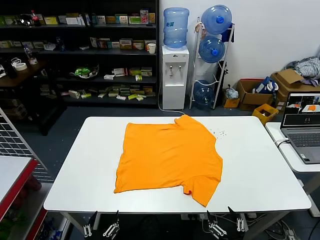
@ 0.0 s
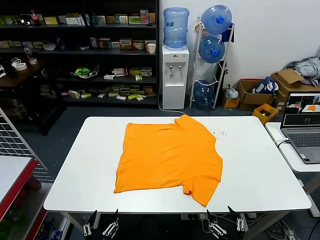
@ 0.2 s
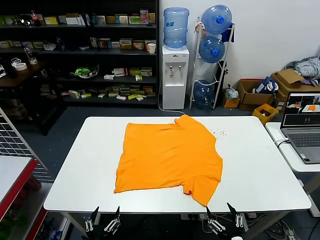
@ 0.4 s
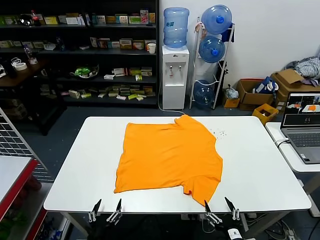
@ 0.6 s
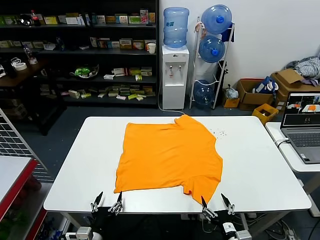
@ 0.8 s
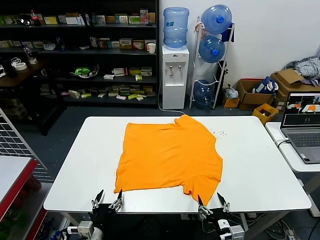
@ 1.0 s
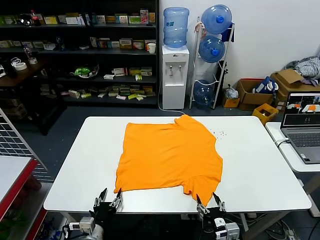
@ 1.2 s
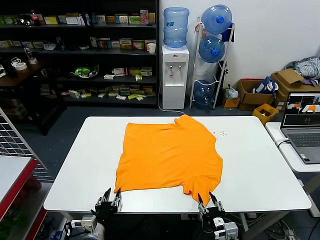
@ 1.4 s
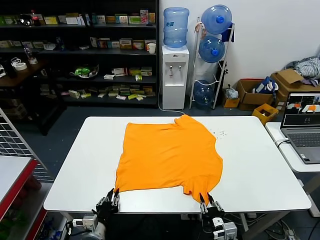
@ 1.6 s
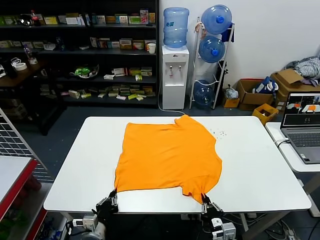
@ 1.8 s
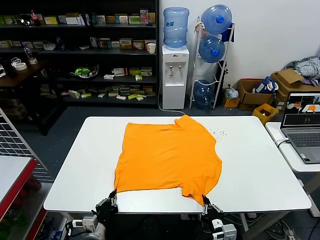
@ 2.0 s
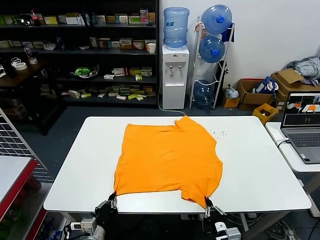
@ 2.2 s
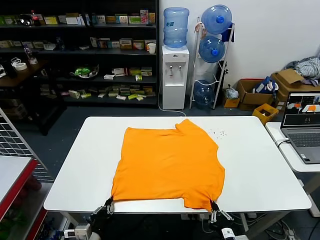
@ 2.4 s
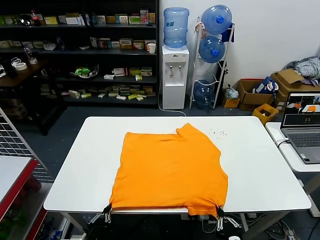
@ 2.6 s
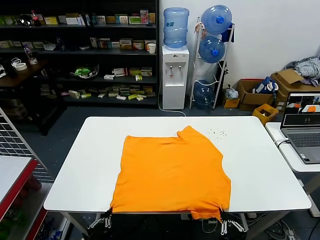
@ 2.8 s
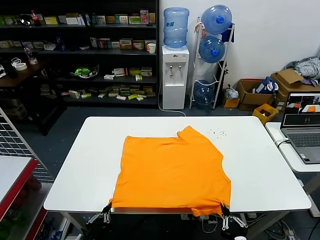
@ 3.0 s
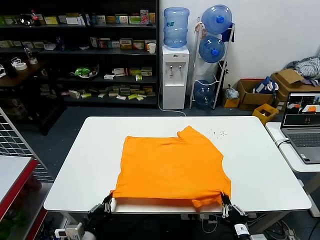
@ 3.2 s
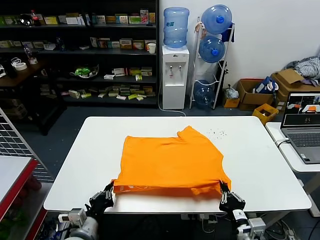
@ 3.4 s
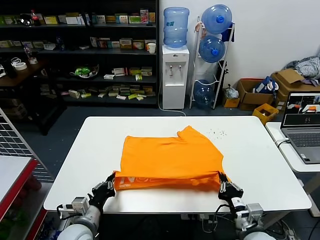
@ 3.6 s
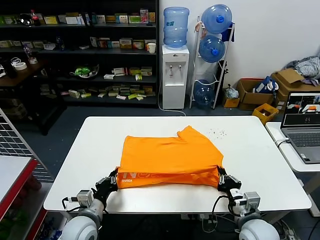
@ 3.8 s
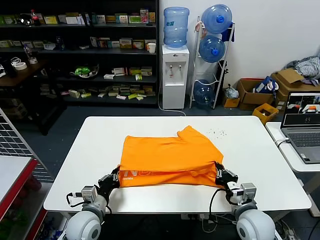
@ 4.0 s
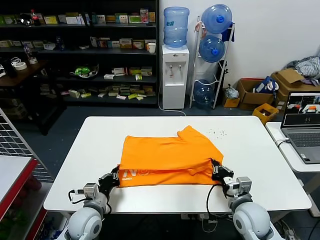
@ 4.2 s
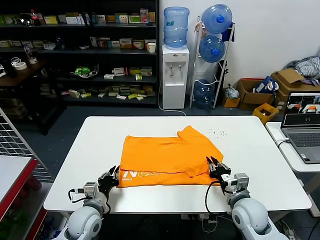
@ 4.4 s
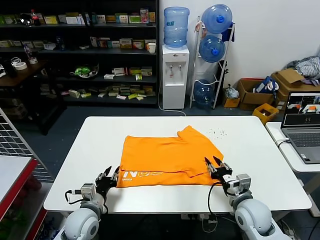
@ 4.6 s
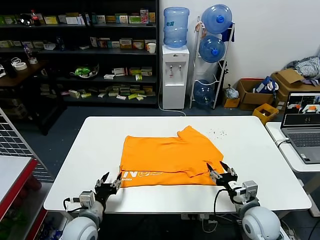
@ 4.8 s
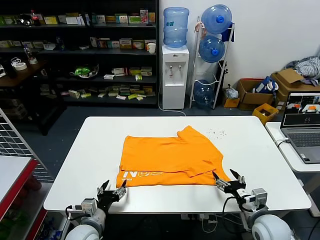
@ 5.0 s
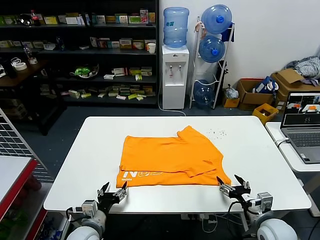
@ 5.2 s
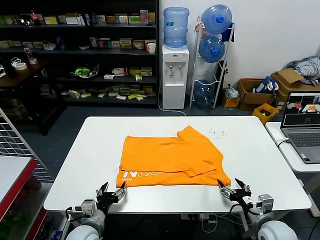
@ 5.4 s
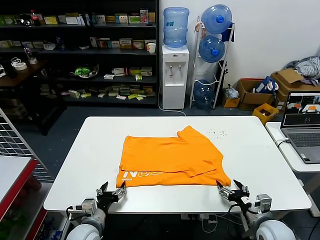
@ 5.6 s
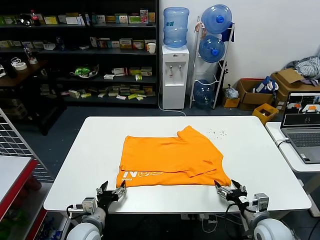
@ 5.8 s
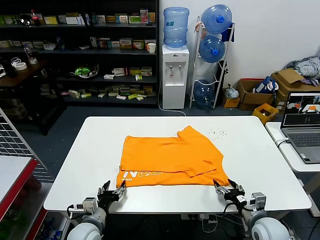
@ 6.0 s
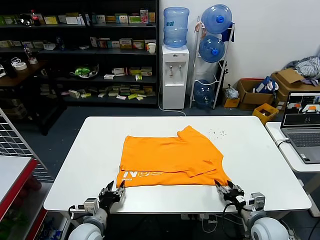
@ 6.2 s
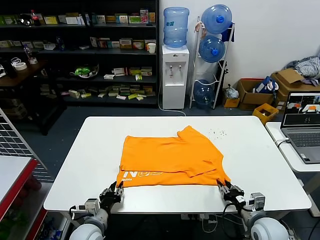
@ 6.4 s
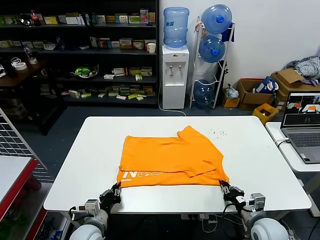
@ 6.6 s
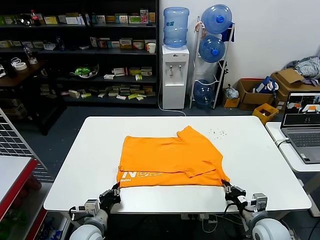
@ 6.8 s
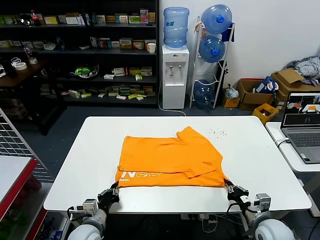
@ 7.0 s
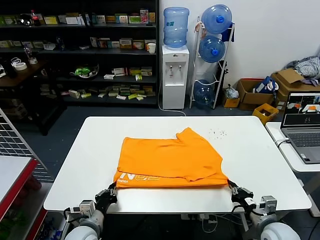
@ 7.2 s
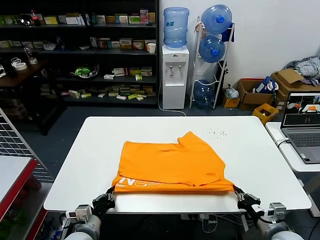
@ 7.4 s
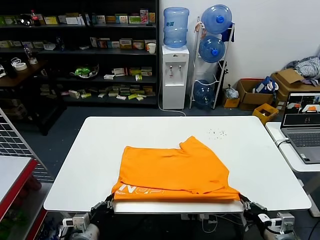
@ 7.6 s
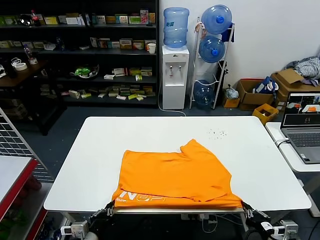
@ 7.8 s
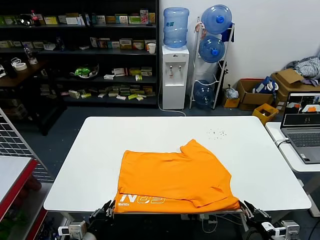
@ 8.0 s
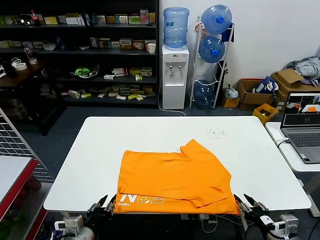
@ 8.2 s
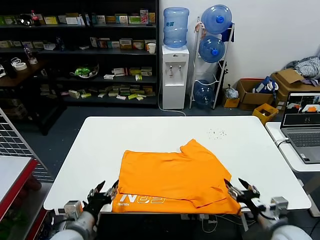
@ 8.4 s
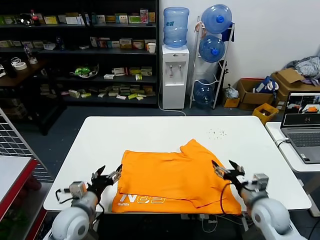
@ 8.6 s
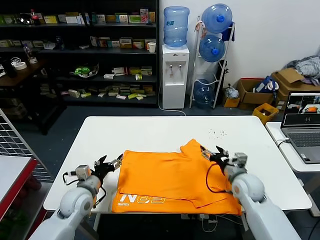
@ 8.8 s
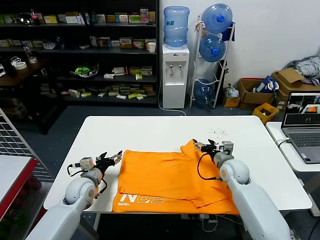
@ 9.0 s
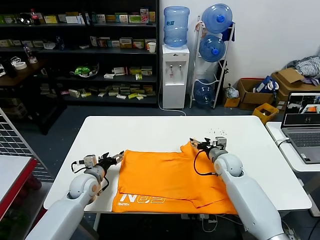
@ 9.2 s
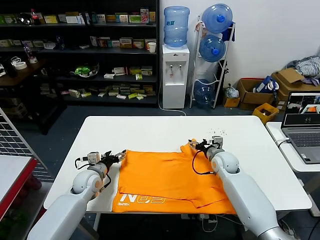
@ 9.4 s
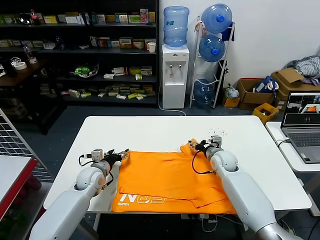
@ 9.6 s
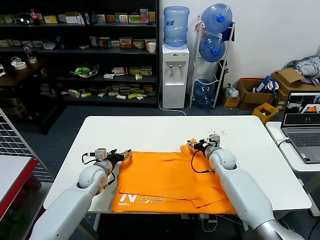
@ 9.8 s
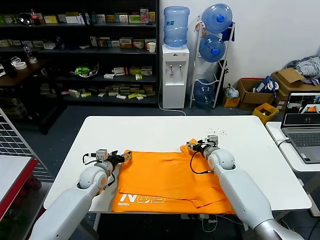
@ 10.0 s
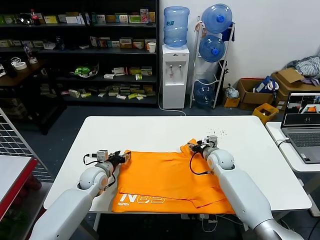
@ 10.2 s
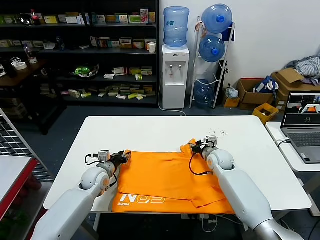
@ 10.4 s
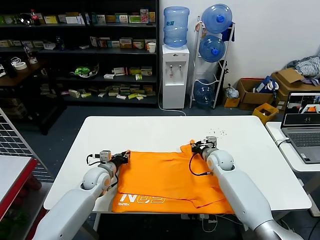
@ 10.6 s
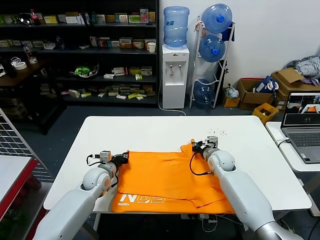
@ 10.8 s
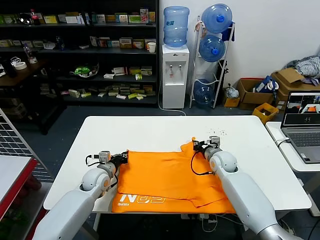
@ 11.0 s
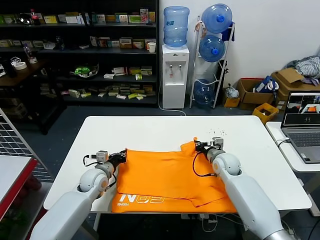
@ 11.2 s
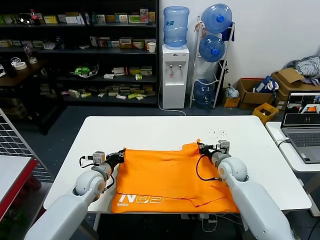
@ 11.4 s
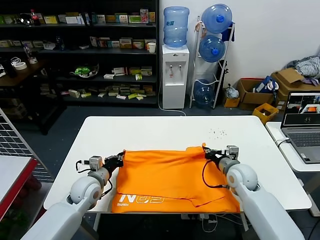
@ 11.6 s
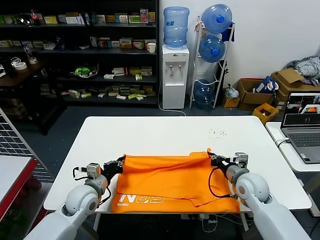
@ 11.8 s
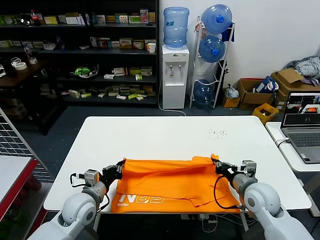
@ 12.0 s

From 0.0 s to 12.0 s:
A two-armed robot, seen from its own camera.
Task of the whole recording: fold and organize the clothes.
Step, from 0.0 s to 1.8 s: use both grippers simultaneously to clamp the lower edge of the clothing fabric.
Step, from 2.0 s to 4.4 s: use both grippers to drag the lower edge of the fabric forward and fold it over the upper edge.
Step, from 4.6 s to 8.0 s: Drag the clothes downward with both gripper.
Step, from 8.2 s to 10.6 s: use both grippers simultaneously to clamp the upper edge of the clothing fabric.
From 1.6 s to 3.0 s: The left gripper heads backward and upward, covering approximately 10 cm. Meanwhile the right gripper heads upward and backward, covering about 10 cm.
From 3.0 s to 4.4 s: Both grippers travel together forward, about 15 cm.
From 4.4 s to 6.0 s: The right gripper goes approximately 5 cm to the right, and opens its fingers, while the left gripper opens up.
From 6.0 s to 7.6 s: The left gripper shifts approximately 5 cm backward, and closes up. The right gripper heads backward, covering approximately 10 cm, and closes.
From 7.6 s to 9.0 s: The left gripper shifts some 20 cm forward, and opens up; the right gripper moves forward, about 30 cm, and opens up.
From 9.0 s to 10.4 s: The two grippers go some 5 cm forward. The left gripper closes its fingers, while the right gripper closes.
From 10.4 s to 12.0 s: The left gripper is displaced backward by some 10 cm, and closes. The right gripper travels backward by roughly 20 cm, and closes.

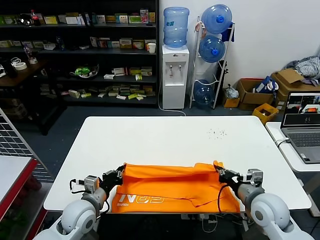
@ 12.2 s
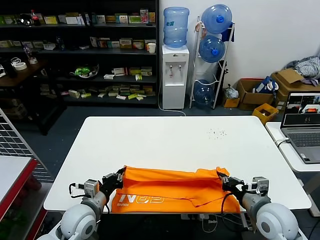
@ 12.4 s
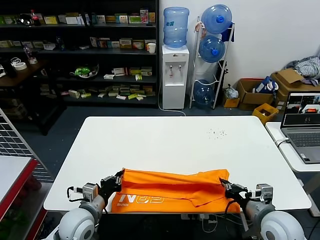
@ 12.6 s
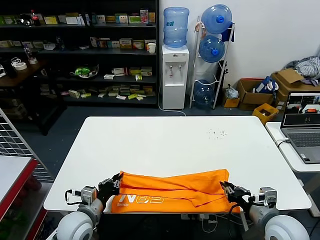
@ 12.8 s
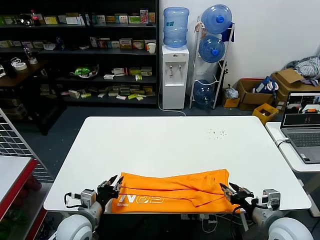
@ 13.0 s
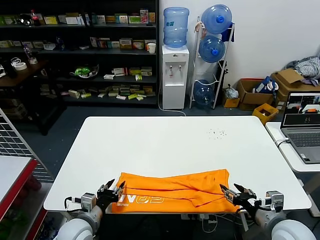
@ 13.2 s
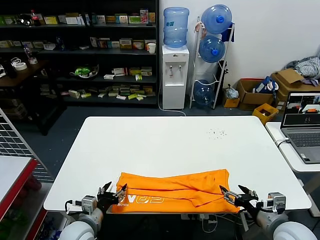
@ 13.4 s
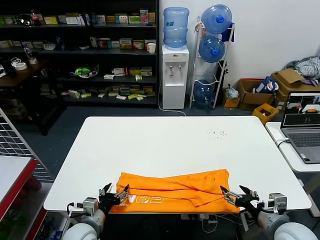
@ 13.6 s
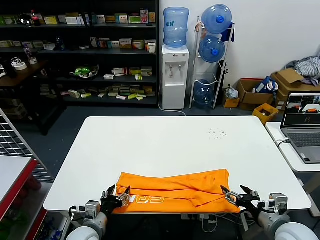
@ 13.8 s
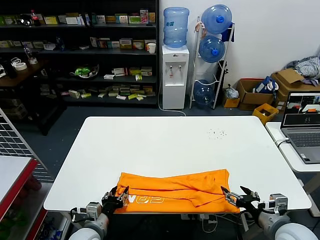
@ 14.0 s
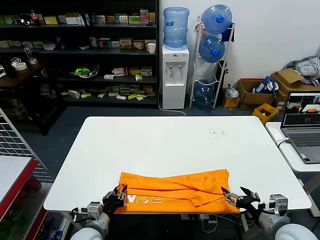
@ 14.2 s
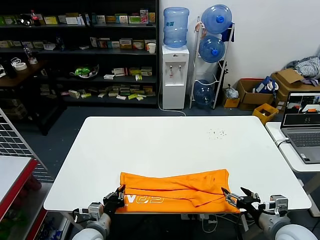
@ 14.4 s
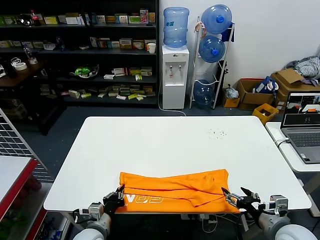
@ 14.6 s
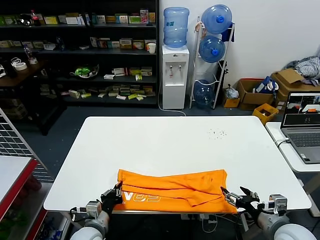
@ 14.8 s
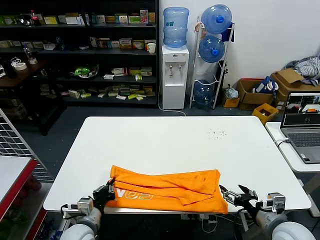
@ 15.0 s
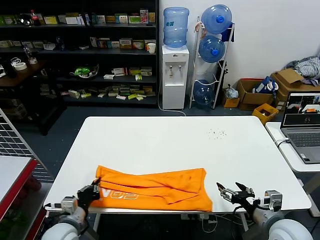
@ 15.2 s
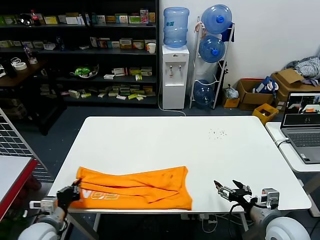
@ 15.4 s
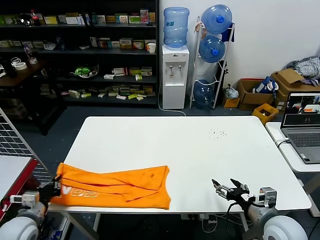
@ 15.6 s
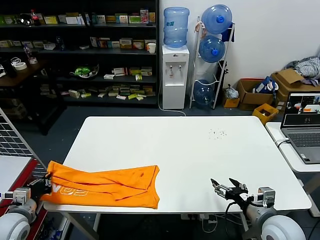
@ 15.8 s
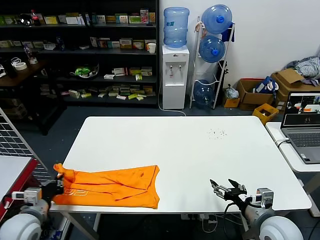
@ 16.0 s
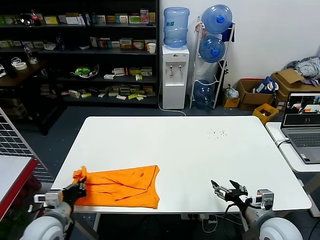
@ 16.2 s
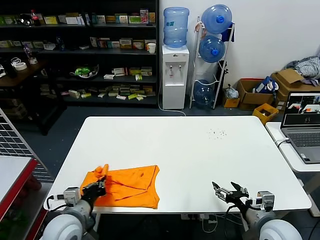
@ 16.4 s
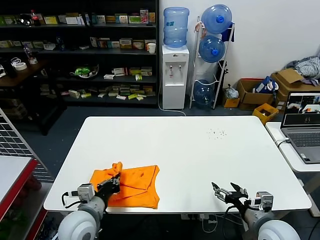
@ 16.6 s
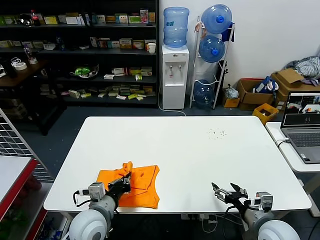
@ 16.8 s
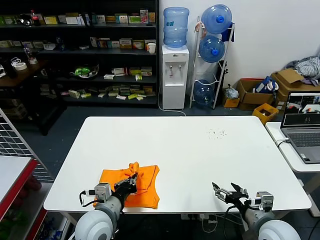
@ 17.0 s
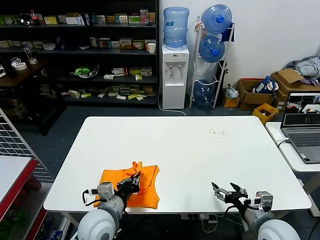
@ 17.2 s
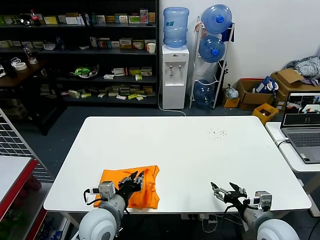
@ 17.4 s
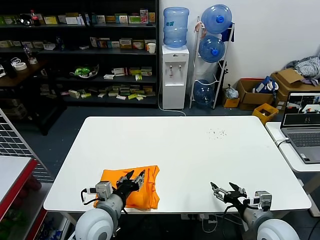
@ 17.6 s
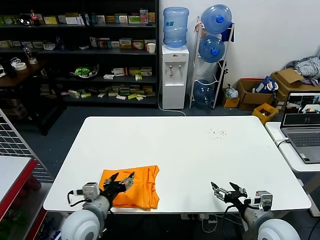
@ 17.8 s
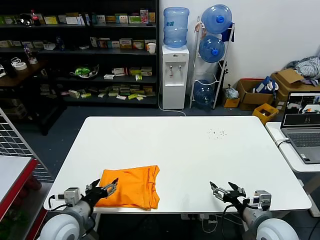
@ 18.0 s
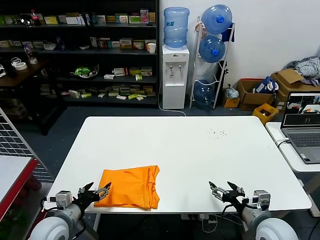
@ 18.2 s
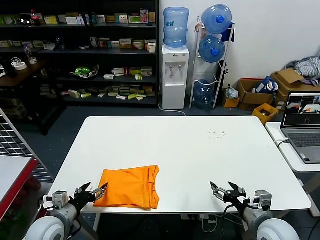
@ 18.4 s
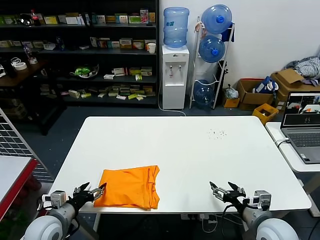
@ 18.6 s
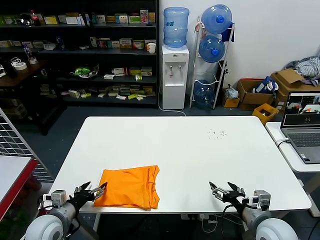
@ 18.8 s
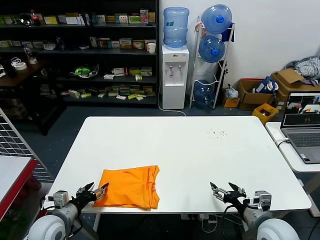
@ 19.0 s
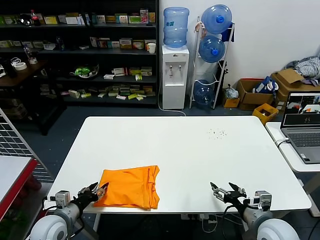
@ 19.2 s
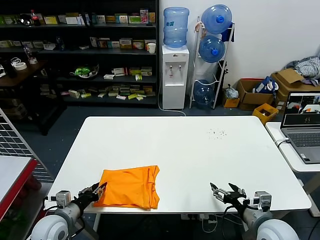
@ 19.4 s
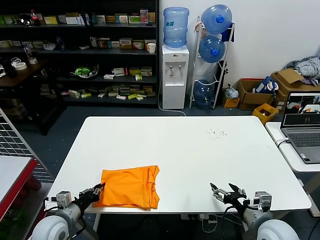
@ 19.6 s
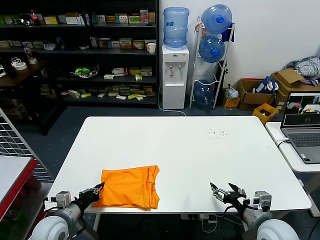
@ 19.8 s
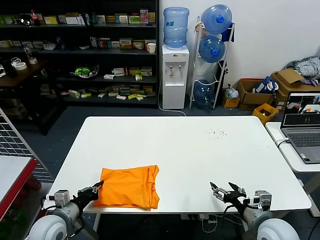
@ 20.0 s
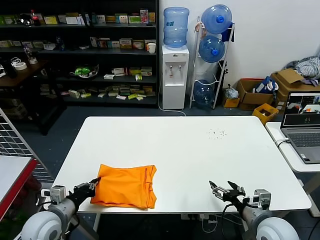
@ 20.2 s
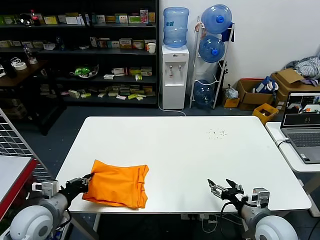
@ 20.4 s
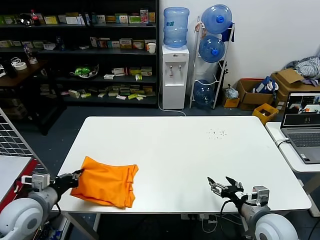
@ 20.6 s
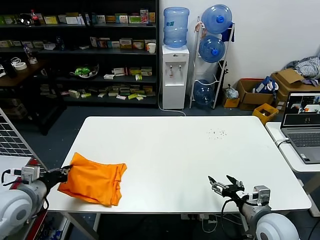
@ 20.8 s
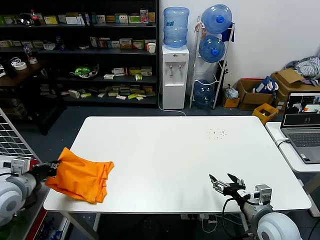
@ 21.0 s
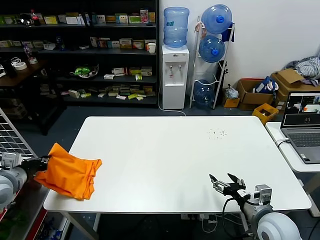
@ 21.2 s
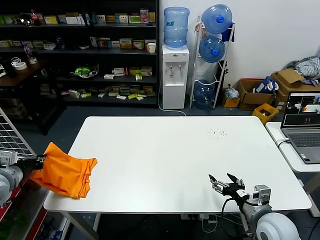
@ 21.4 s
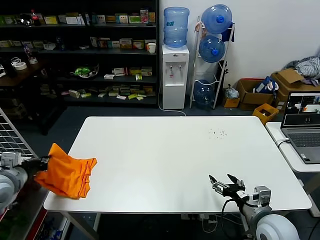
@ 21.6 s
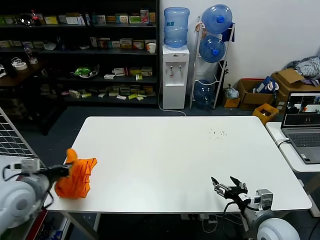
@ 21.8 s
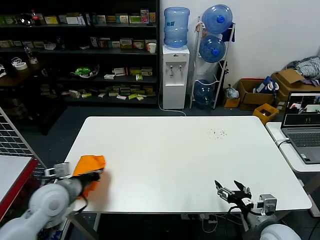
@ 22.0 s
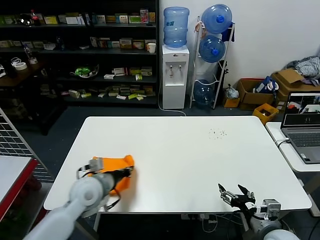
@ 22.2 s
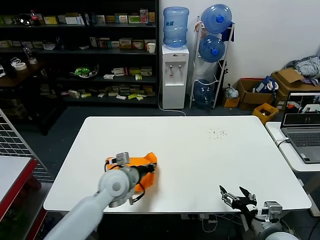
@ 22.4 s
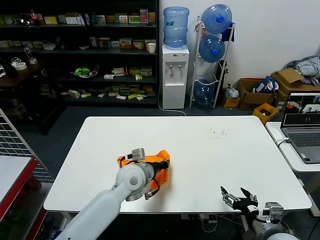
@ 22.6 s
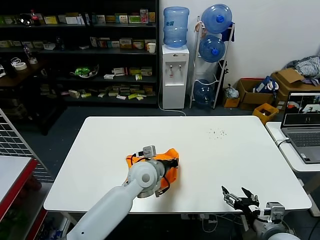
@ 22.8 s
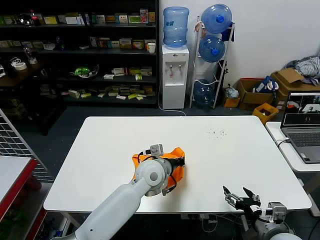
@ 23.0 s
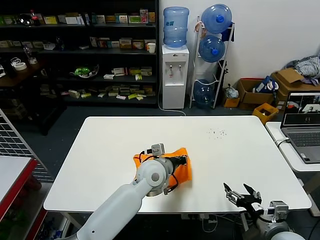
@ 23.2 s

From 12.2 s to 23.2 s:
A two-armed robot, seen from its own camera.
Task of the whole recording: fold and organize the clothes.
Step, from 13.0 s to 14.4 s: use the left gripper to clamp the left edge of the fabric.
Step, from 14.6 s to 17.4 s: use the left gripper to drag the left edge of the fabric to the left and folds it over the right edge.
Step, from 17.6 s to 23.2 s: Flip the folded clothes over with left gripper.
From 12.2 s to 13.8 s: The two grippers go some 5 cm backward. The left gripper opens its fingers. The right gripper opens up.
From 13.8 s to 15.4 s: The left gripper is displaced to the left by roughly 10 cm, and closes up.
From 15.4 s to 17.0 s: The left gripper is displaced to the right by some 15 cm.
From 17.0 s to 18.4 s: The left gripper shifts approximately 15 cm to the left, and opens its fingers.
From 18.4 s to 20.0 s: The left gripper closes.
From 20.0 s to 21.6 s: The left gripper moves upward and to the left, approximately 20 cm.
From 21.6 s to 23.2 s: The left gripper moves to the right, about 40 cm.
